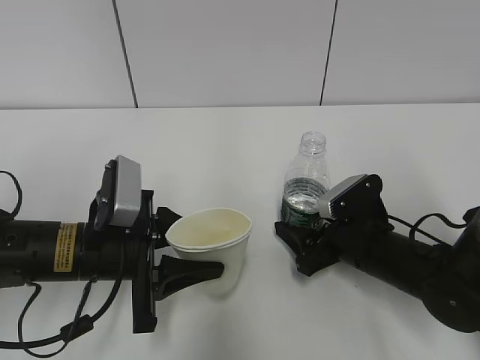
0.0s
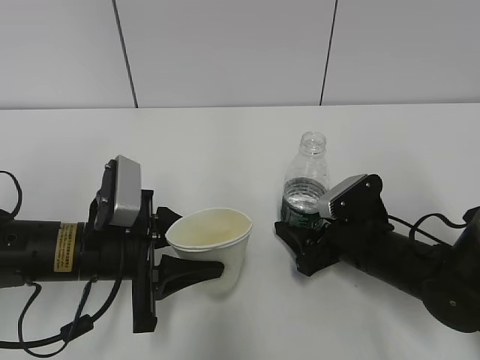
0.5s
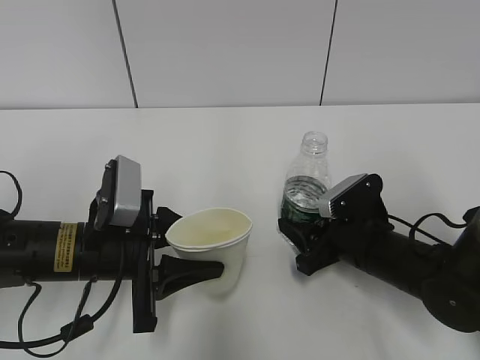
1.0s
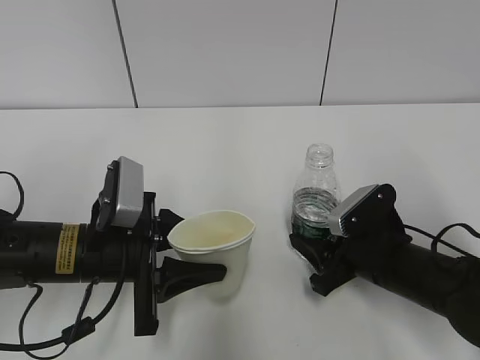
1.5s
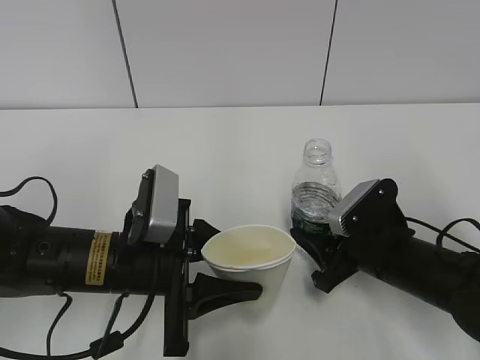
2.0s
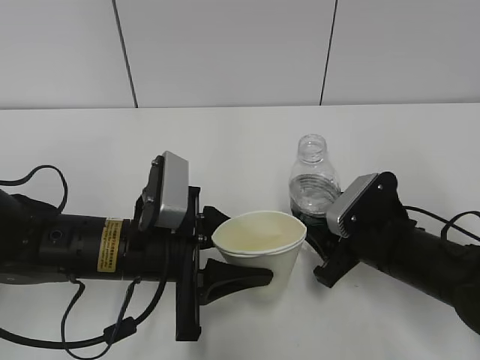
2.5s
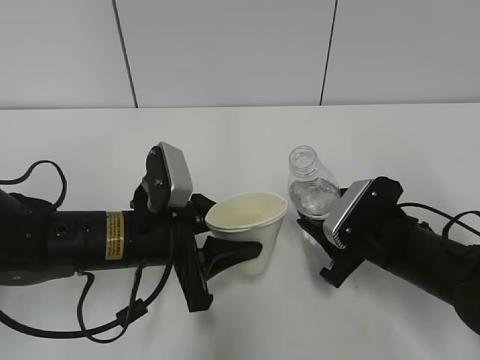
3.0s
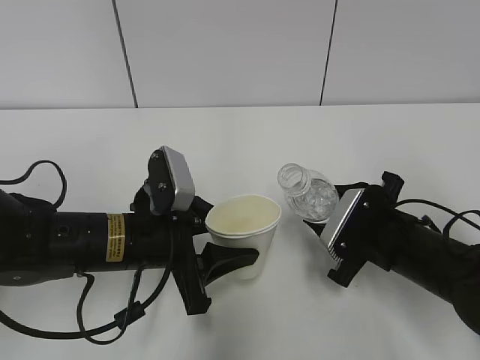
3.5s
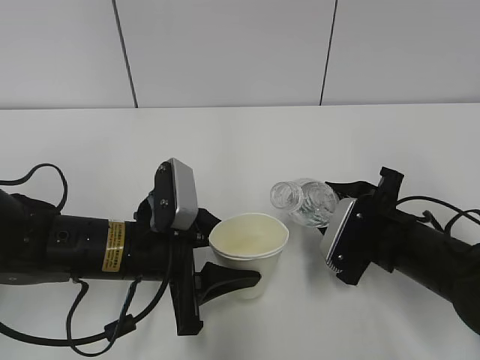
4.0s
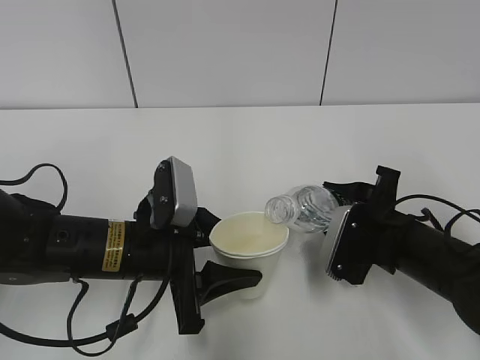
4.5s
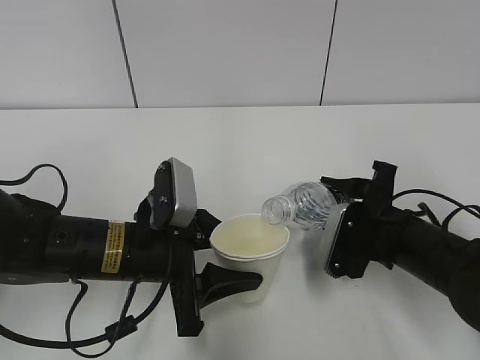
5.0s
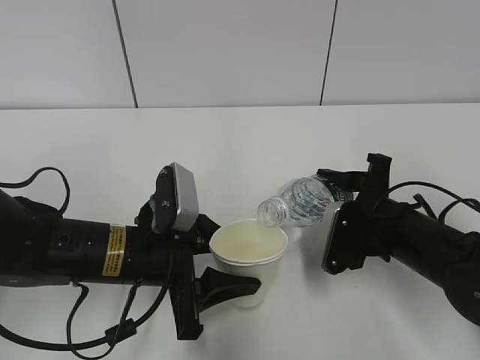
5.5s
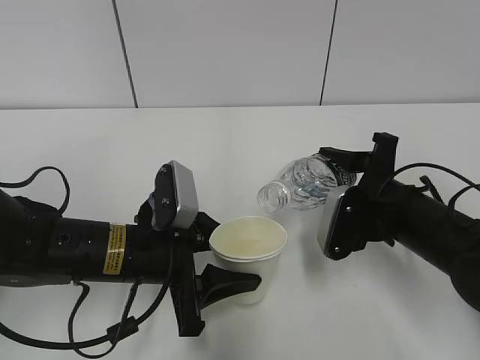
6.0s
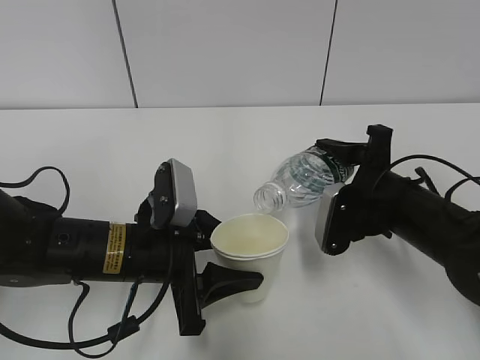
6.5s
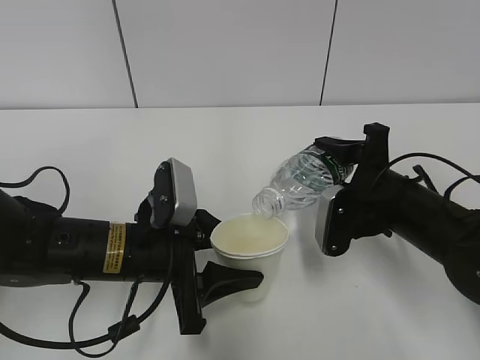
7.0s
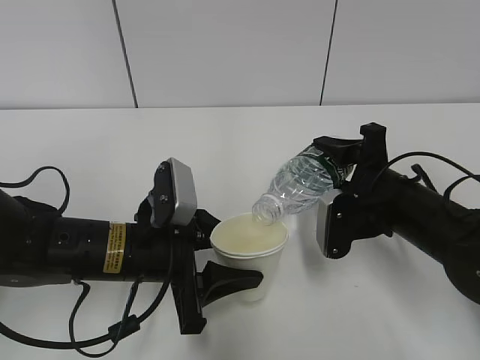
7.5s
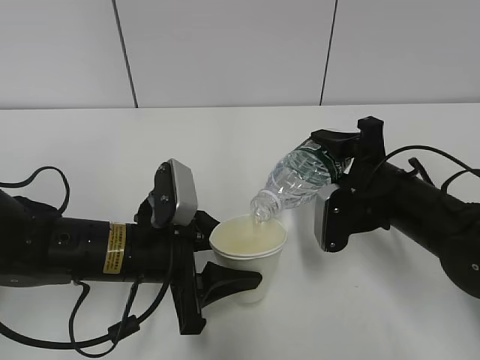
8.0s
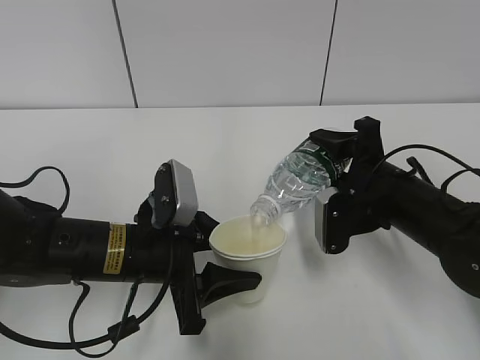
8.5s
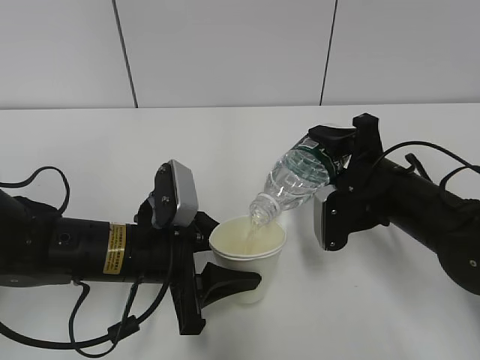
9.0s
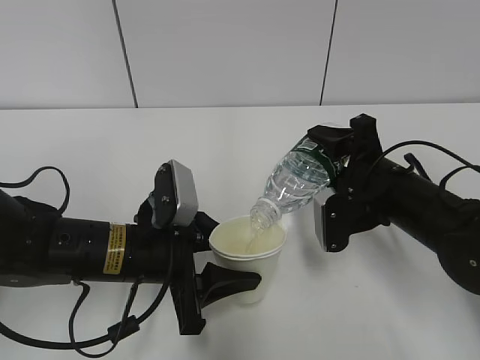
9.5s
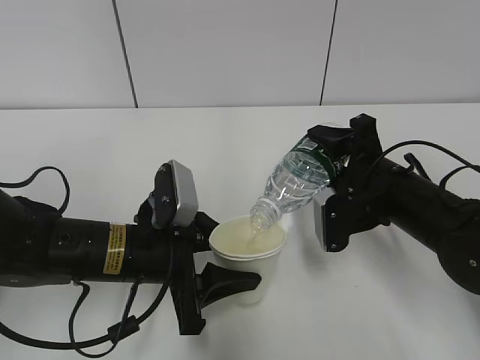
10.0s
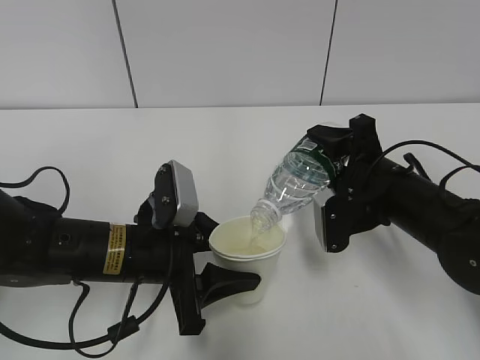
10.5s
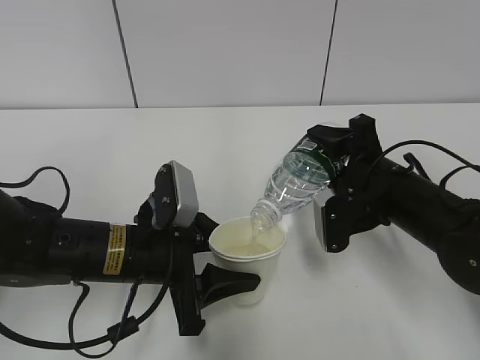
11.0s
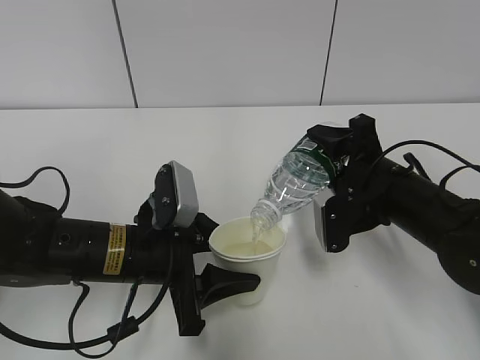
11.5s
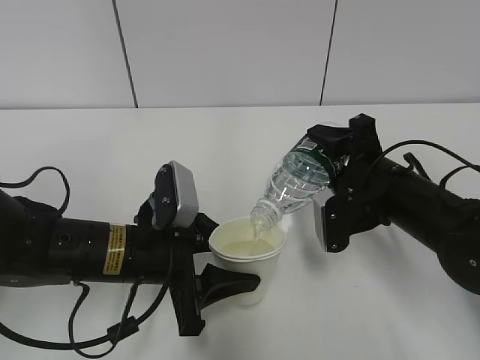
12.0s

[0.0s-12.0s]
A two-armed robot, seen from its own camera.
Step, 1.5s to 6.0s: Fill water with the left hand.
Step, 1.5s to 6.0s: Pour water with the right hand.
Step, 6.5s to 7.0s: Collect water with the right hand.
Step, 7.5s to 8.5s: Place the paper cup with the left hand.
0.0s to 2.0s: The right gripper closes up.
6.0s to 8.0s: The grippers move only a little.
8.0s to 10.0s: The grippers make only small movements.
10.0s to 12.0s: Neither gripper changes place.

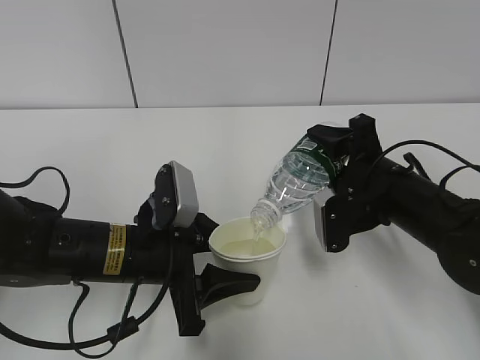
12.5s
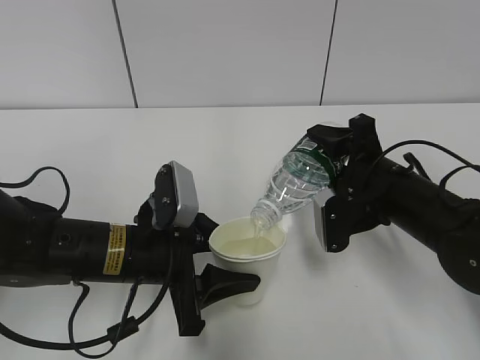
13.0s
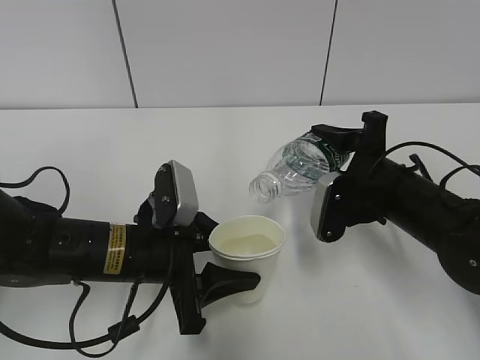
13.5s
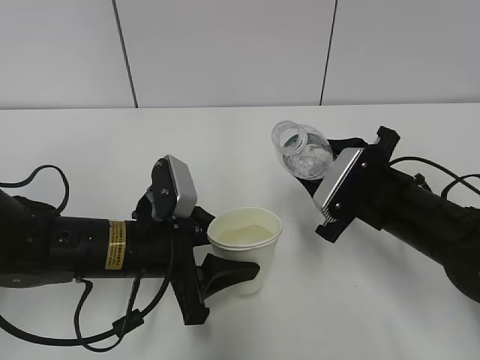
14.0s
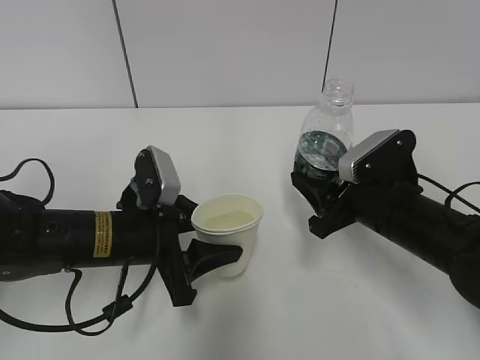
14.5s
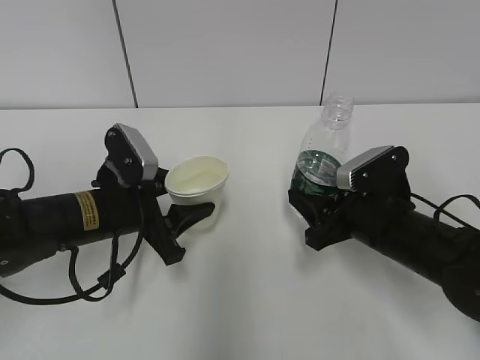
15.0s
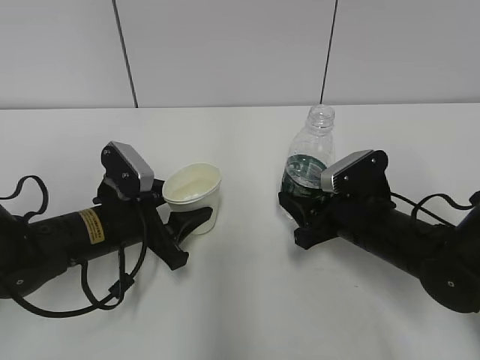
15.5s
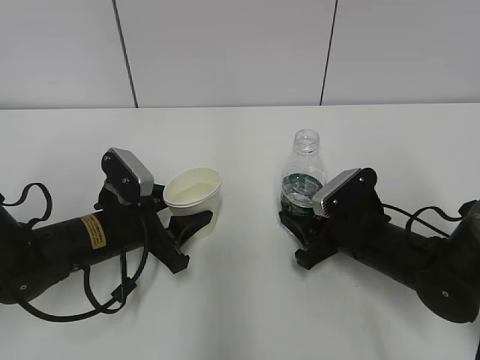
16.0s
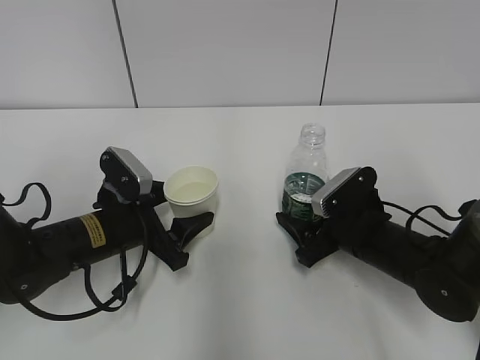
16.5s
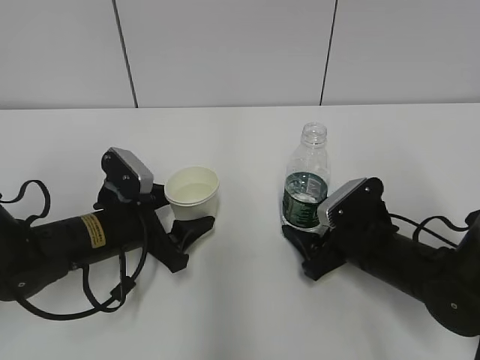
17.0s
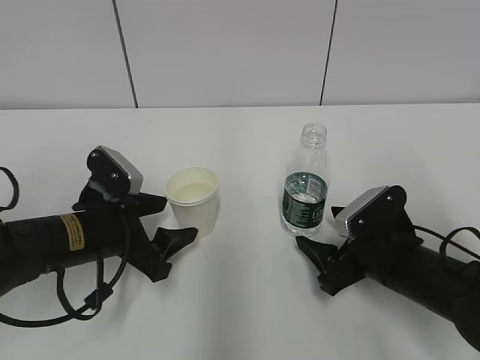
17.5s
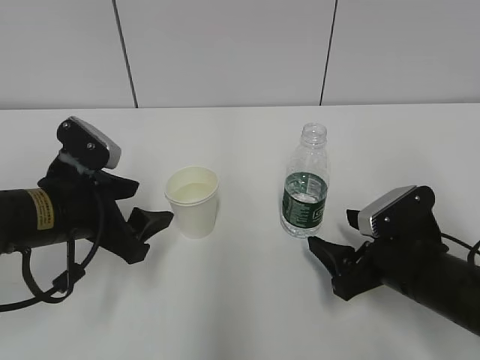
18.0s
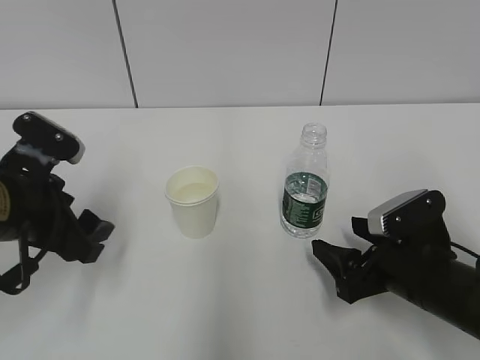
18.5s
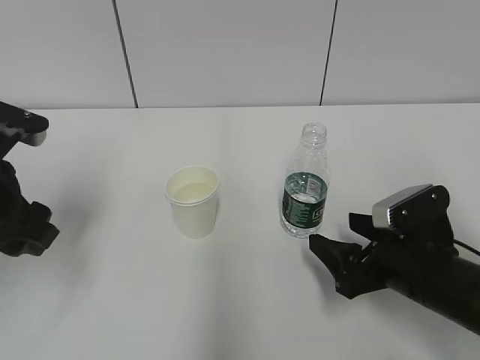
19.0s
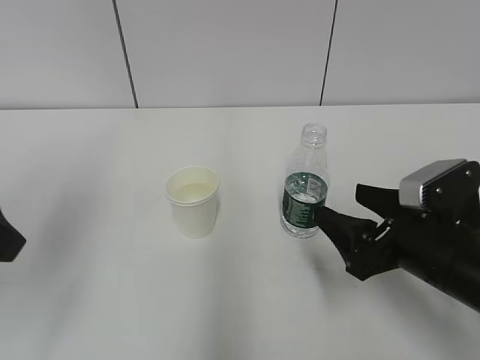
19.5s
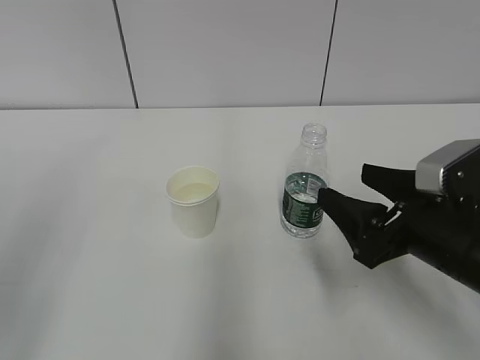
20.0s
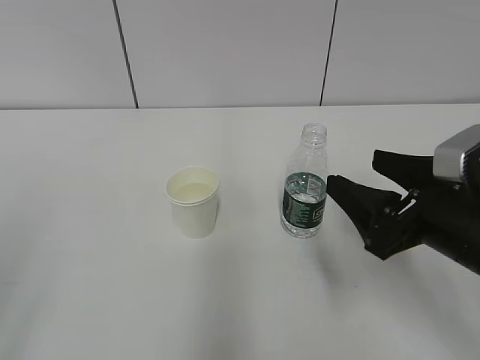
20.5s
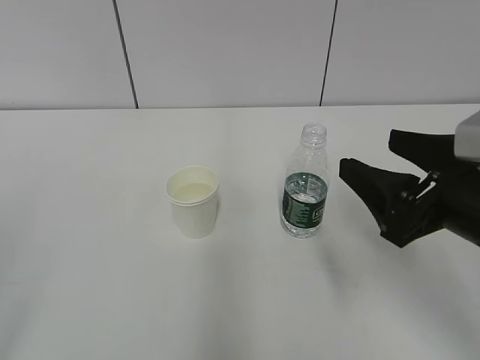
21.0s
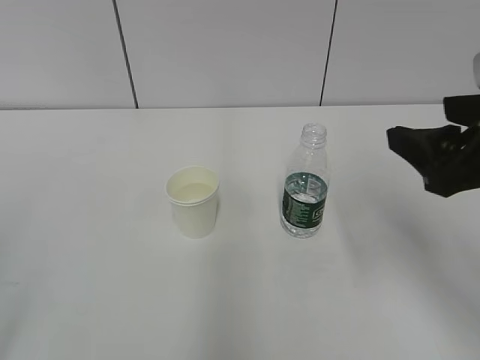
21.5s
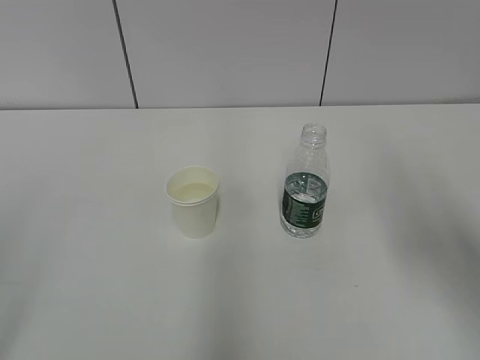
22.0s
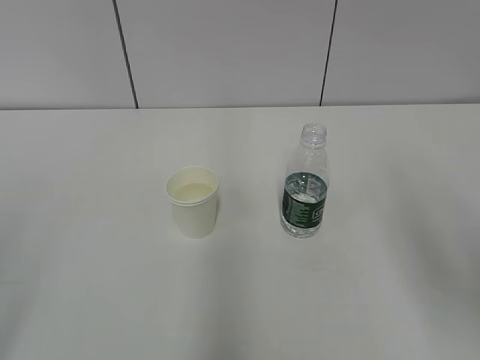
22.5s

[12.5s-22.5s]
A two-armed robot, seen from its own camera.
14.5s to 16.5s: The left gripper shifts by some 5 cm, and opens its fingers. The right gripper goes about 5 cm downward, and opens up.
16.5s to 18.5s: The right gripper travels backward by about 10 cm; the left gripper is displaced upward, to the left and backward by some 15 cm.
18.5s to 20.5s: The right gripper goes some 10 cm upward. The left gripper shifts some 25 cm backward and upward.
20.5s to 22.5s: The right gripper is displaced upward, backward and to the right by approximately 15 cm.

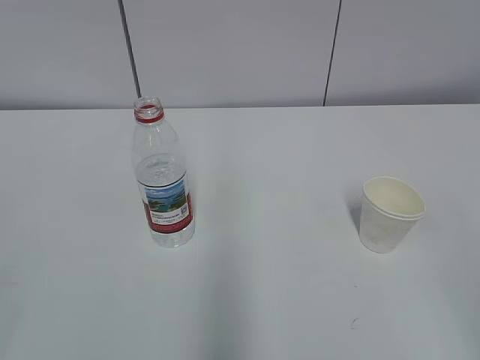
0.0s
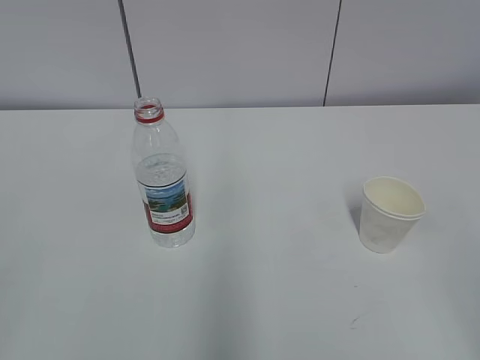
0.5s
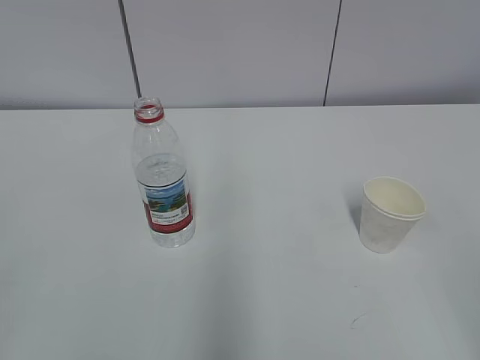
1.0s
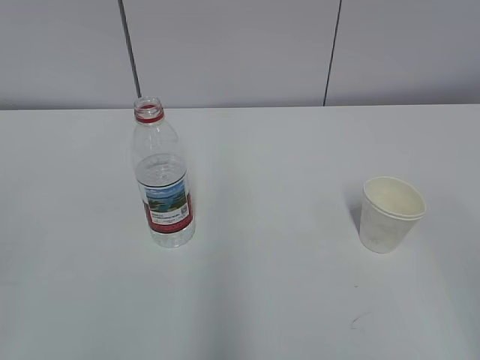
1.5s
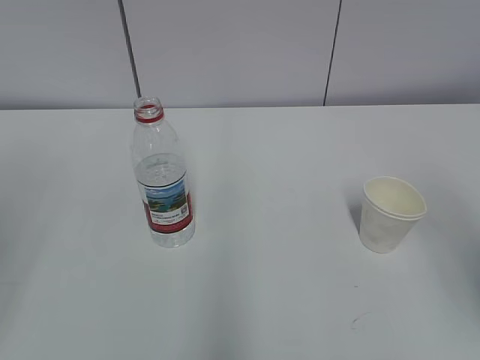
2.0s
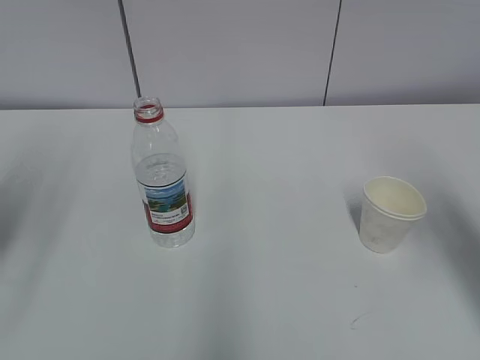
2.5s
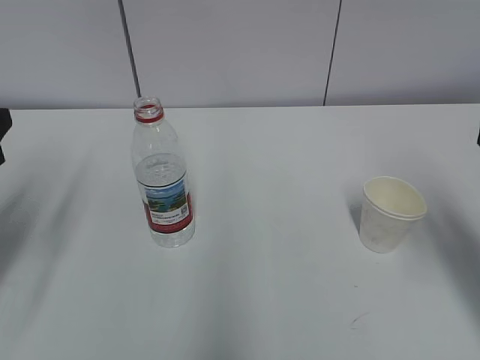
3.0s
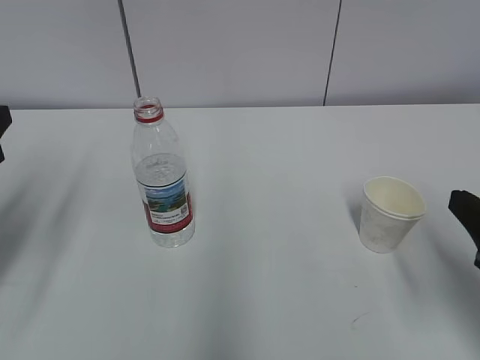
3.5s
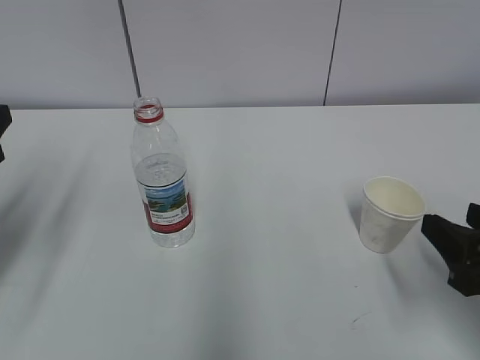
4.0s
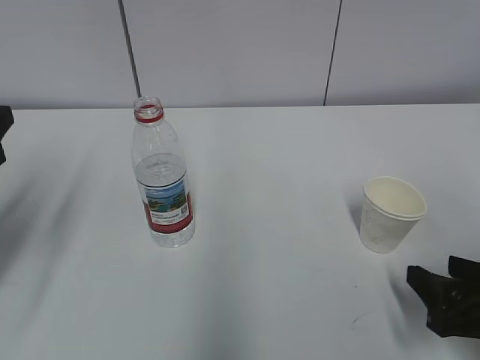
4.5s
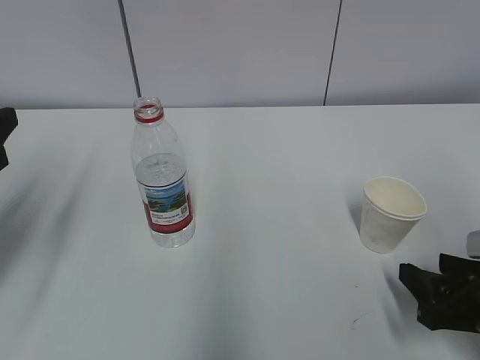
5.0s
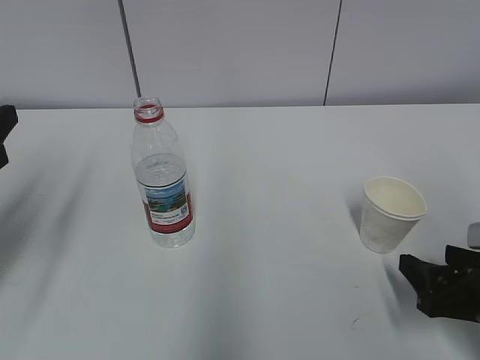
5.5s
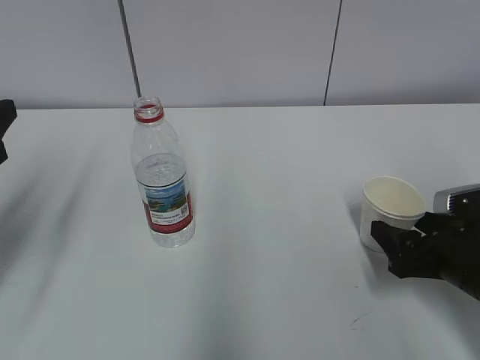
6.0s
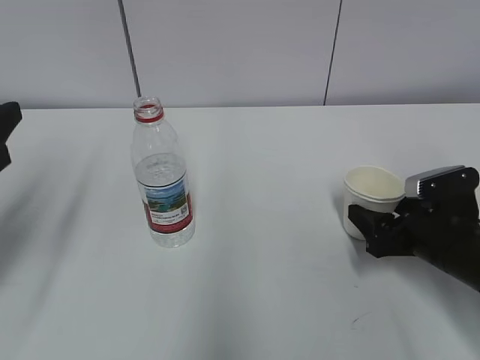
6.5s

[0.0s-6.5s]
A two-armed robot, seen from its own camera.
2.0s to 4.5s: The left gripper travels forward and downward by approximately 15 cm. Meanwhile the right gripper shifts about 20 cm downward.
4.5s to 6.5s: The right gripper shifts approximately 10 cm forward, and opens.
